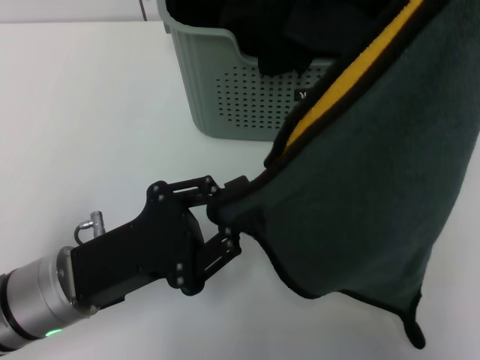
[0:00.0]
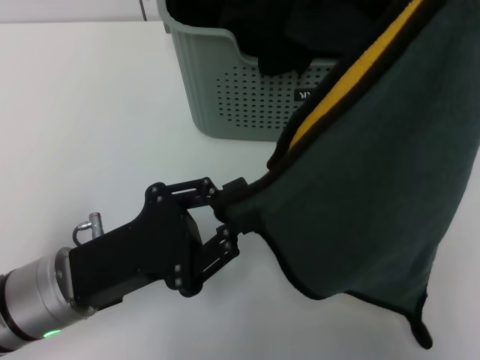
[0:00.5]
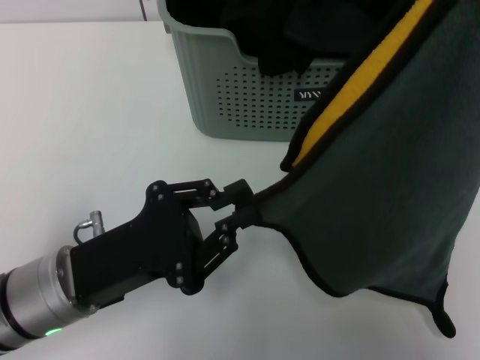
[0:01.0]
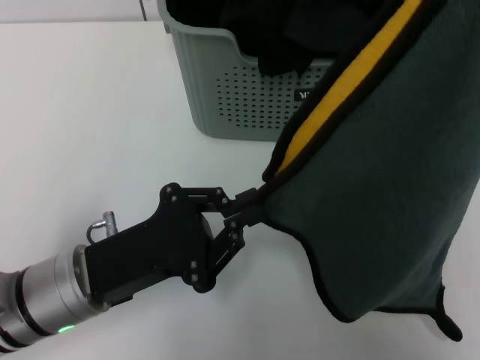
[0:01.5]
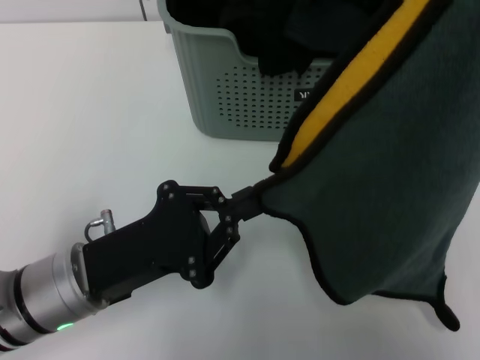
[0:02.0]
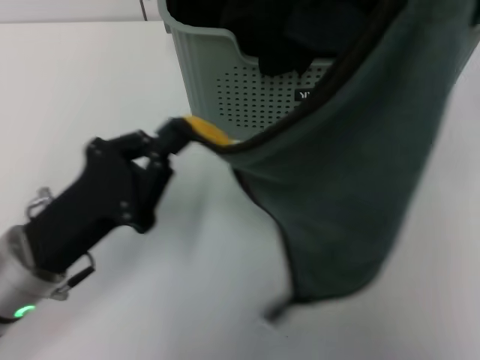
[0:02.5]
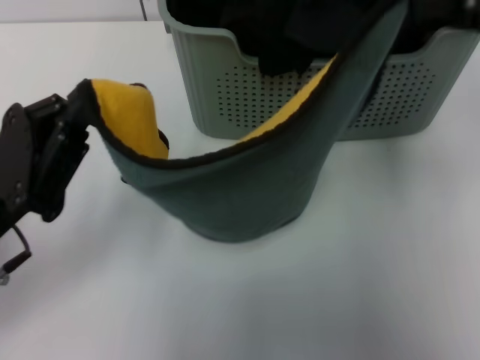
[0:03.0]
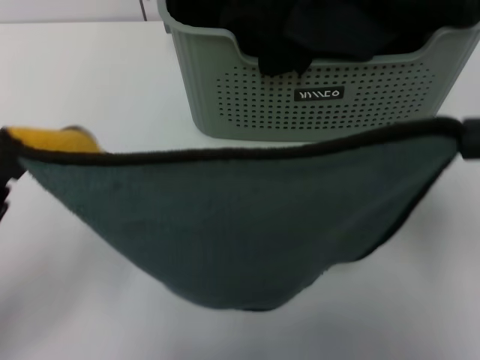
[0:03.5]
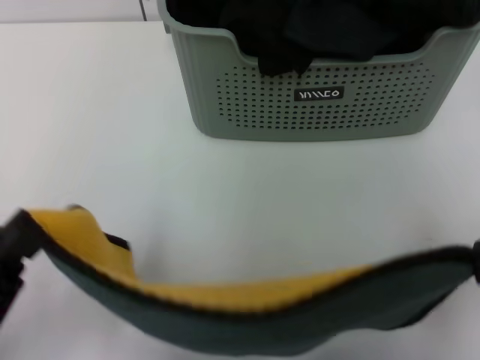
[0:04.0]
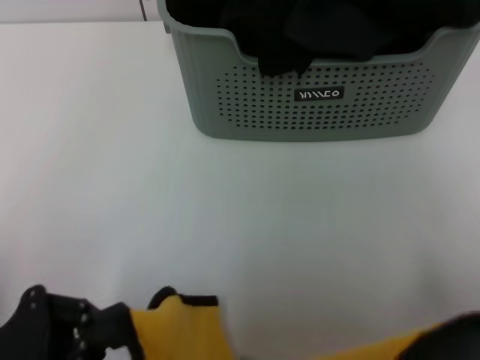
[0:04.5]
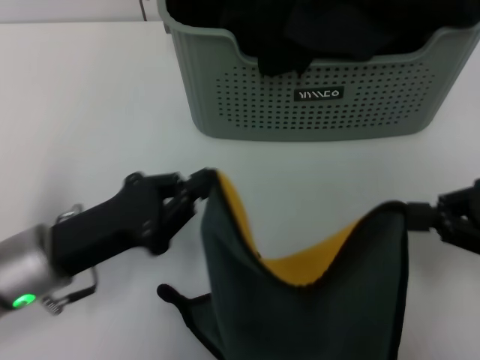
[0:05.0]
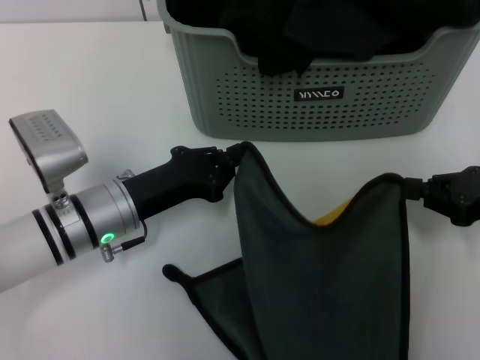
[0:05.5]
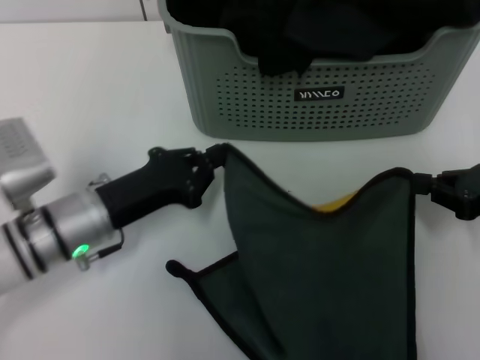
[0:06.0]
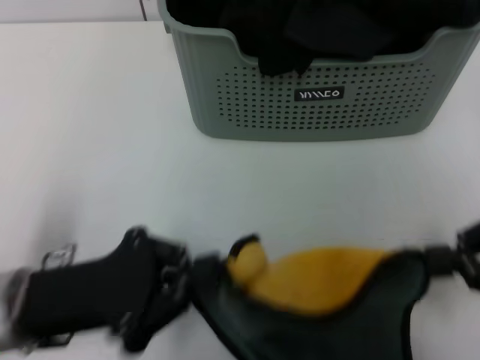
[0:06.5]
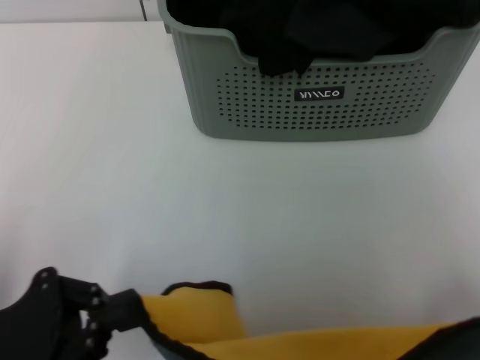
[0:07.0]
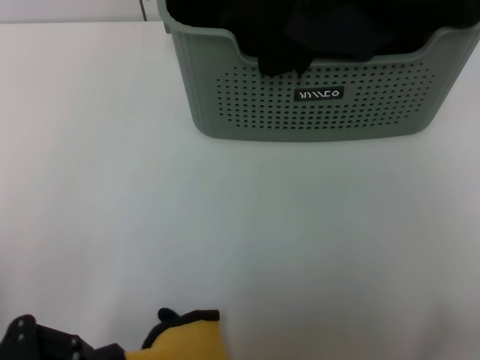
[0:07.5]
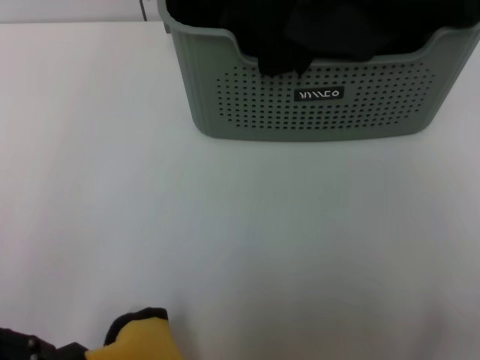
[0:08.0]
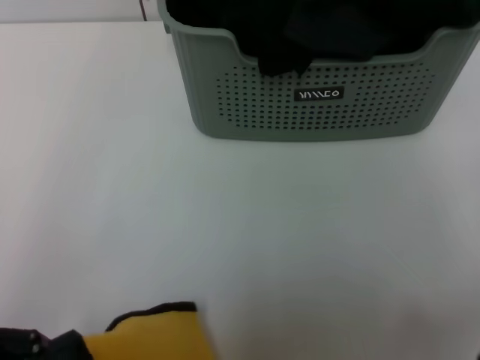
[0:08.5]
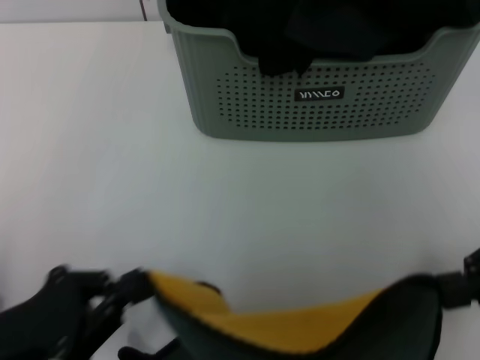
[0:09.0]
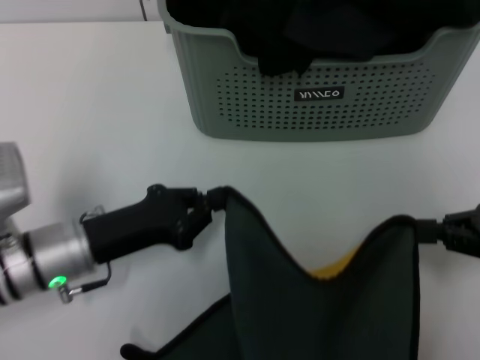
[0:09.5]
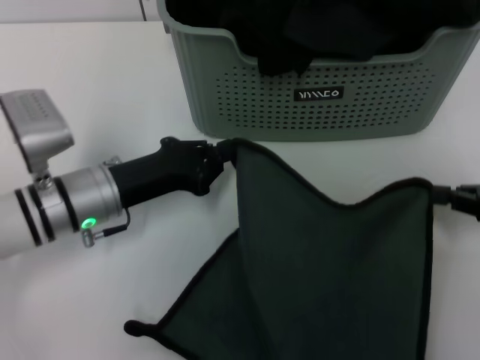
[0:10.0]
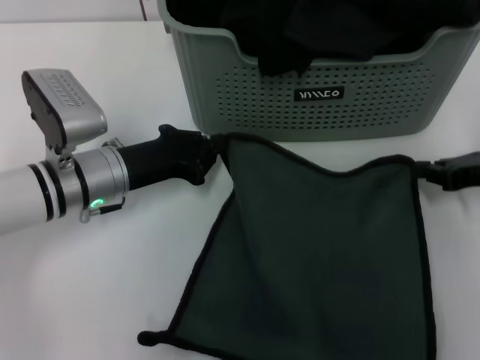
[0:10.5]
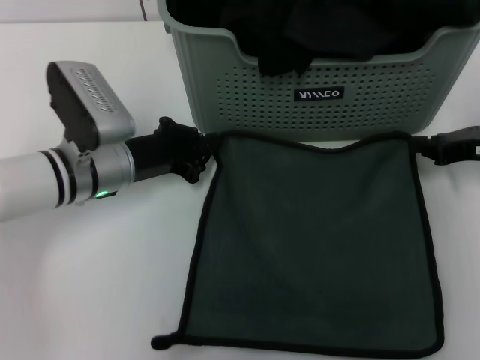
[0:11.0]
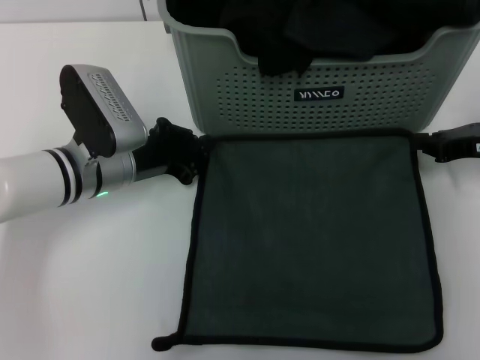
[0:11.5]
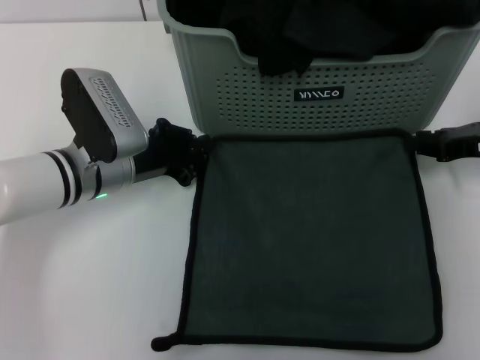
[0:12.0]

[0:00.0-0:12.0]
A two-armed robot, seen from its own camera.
Task of the whole recording: pick up the towel from the storage box and lay it flat on the table.
0.0 to 2.0 s: The two grippers keep their place.
2.0 to 4.0 s: The right gripper is displaced downward and backward by approximately 20 cm. The left gripper is displaced backward and to the left by about 15 cm.
4.0 to 6.0 s: The left gripper moves forward and to the right, approximately 20 cm; the right gripper is displaced downward and forward by roughly 20 cm.
6.0 to 8.0 s: The left gripper is displaced backward, to the left and upward by approximately 20 cm, while the right gripper heads backward and upward, covering about 15 cm.
8.0 to 10.0 s: The right gripper moves downward and forward, some 15 cm; the left gripper is displaced forward and to the right by approximately 25 cm.
10.0 to 12.0 s: The right gripper shifts roughly 10 cm forward.

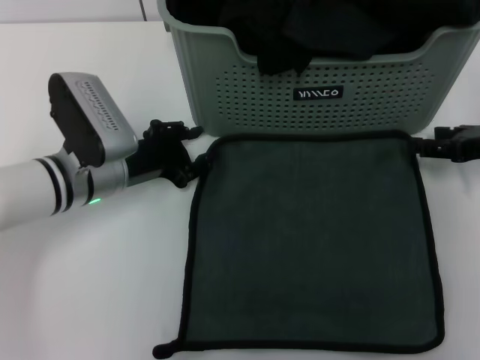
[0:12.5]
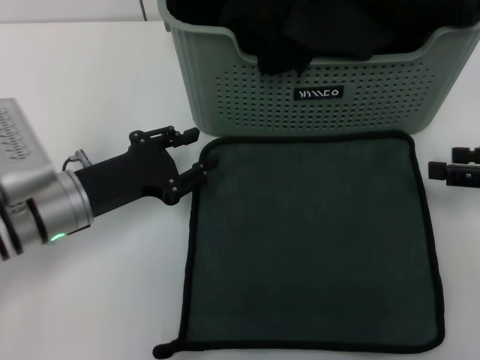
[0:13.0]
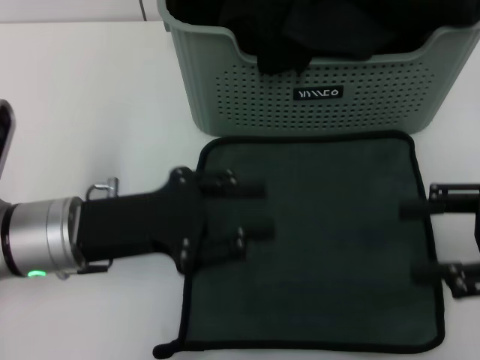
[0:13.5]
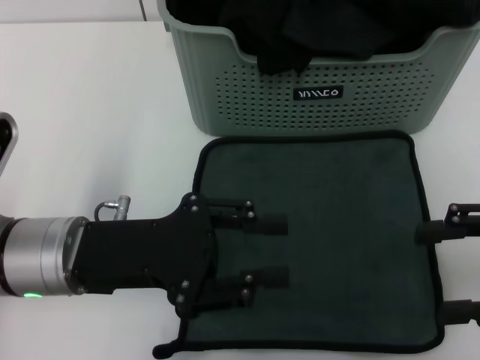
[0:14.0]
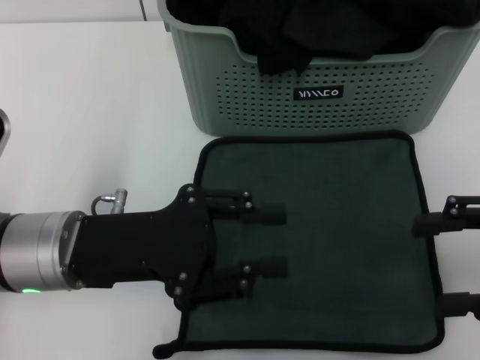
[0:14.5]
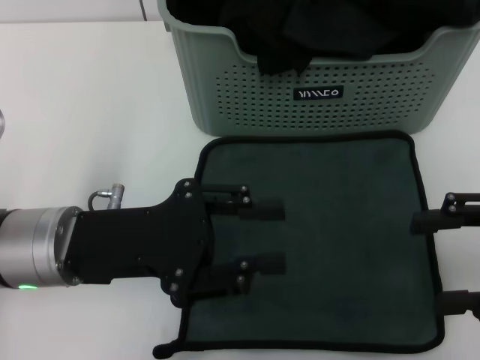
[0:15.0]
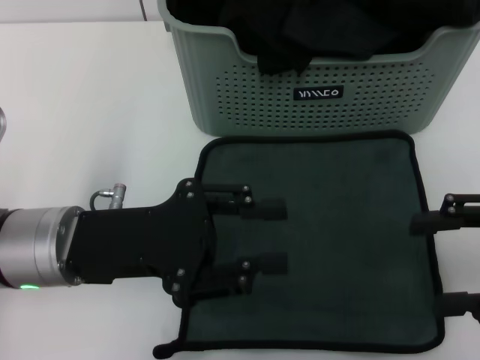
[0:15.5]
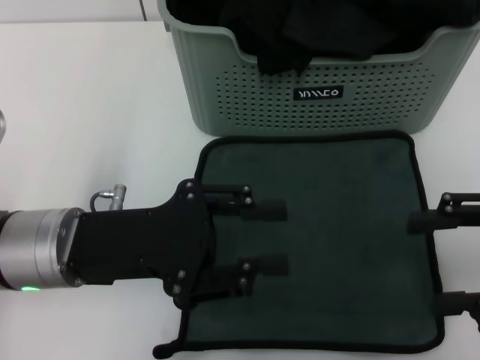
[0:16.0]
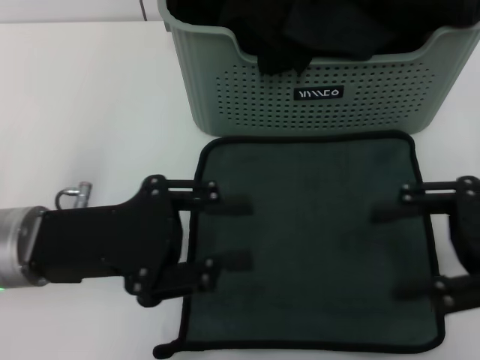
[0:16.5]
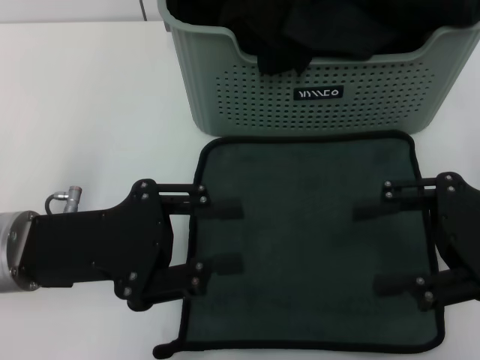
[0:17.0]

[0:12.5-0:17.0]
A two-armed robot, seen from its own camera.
Task of the whole recording: pick up the towel from the storage box and lay it flat on the table.
12.5 to 14.5 s: Both grippers move backward and upward, approximately 15 cm.
14.5 to 17.0 s: The right gripper changes place by approximately 5 cm.

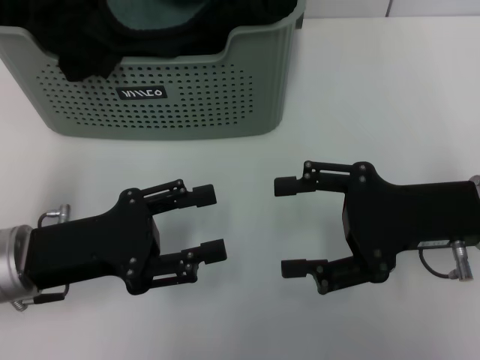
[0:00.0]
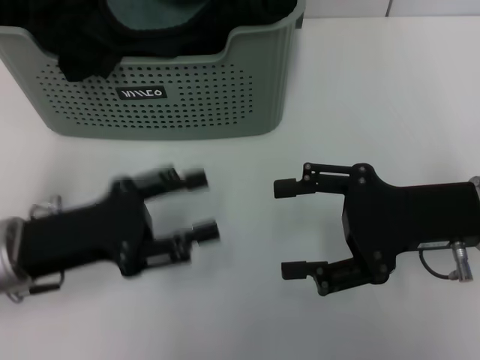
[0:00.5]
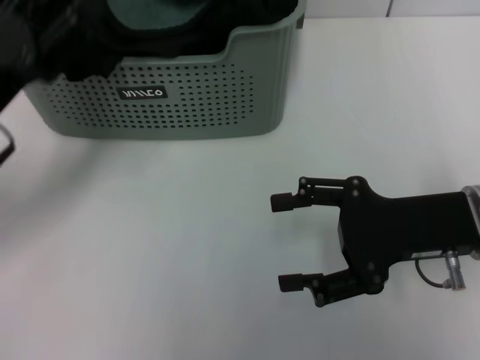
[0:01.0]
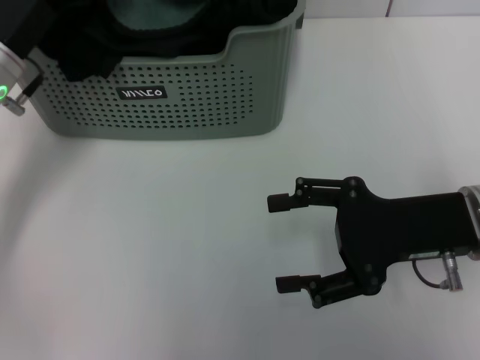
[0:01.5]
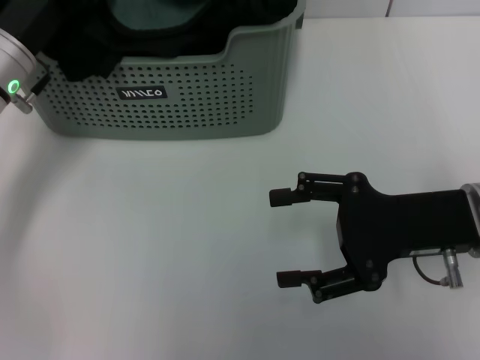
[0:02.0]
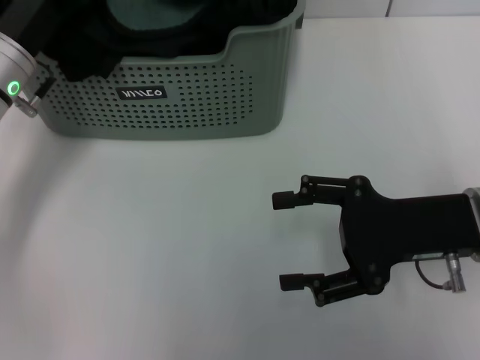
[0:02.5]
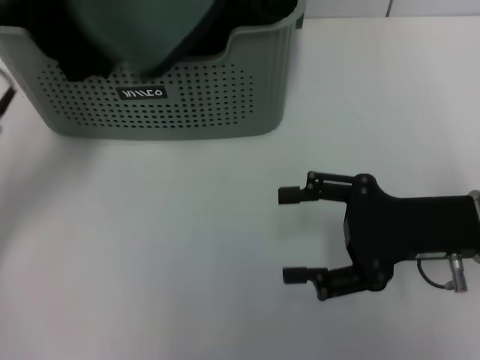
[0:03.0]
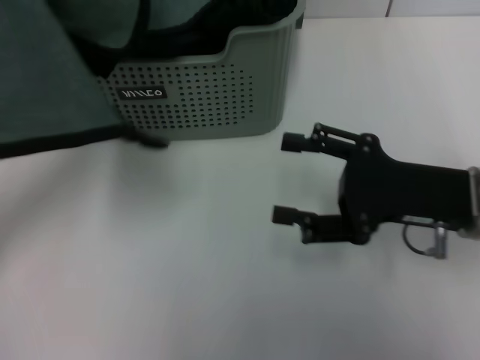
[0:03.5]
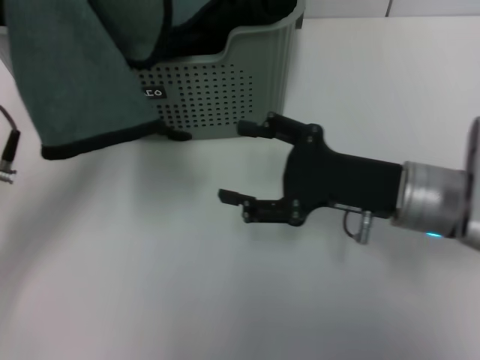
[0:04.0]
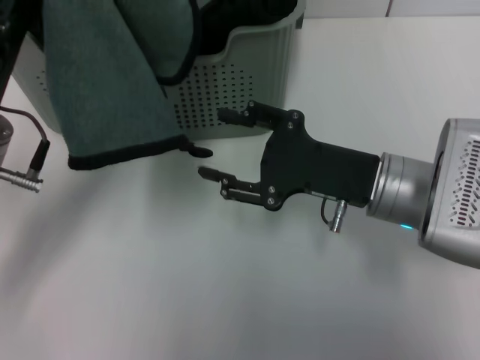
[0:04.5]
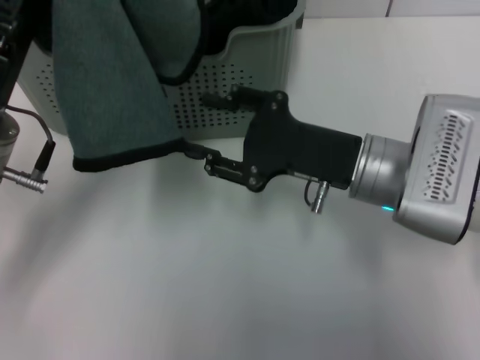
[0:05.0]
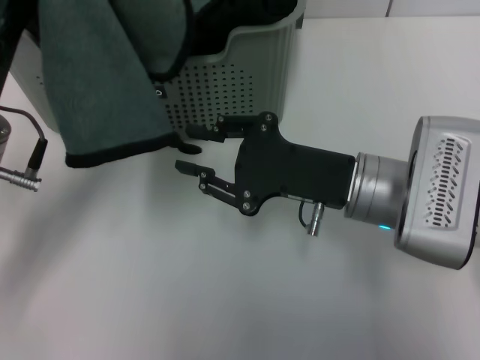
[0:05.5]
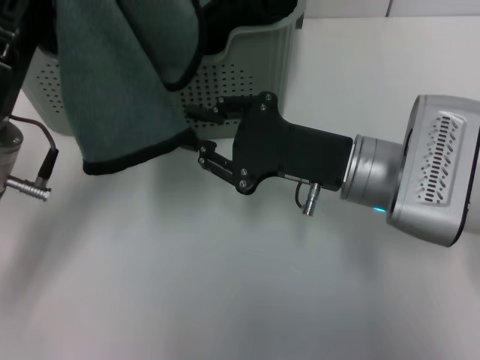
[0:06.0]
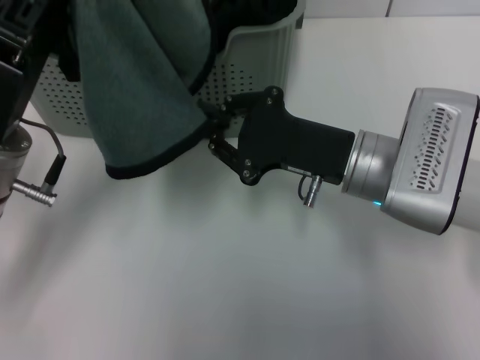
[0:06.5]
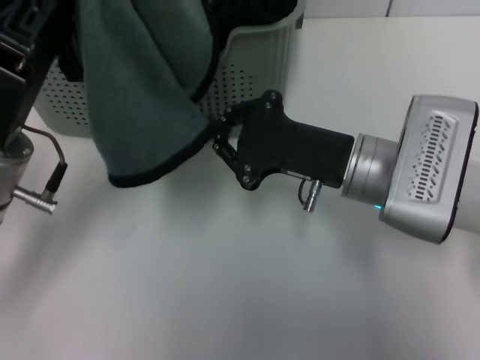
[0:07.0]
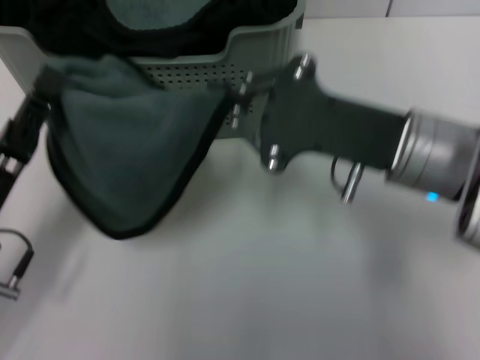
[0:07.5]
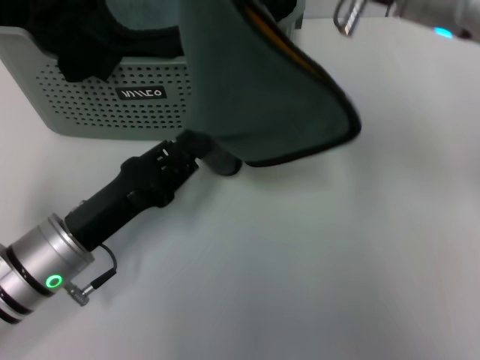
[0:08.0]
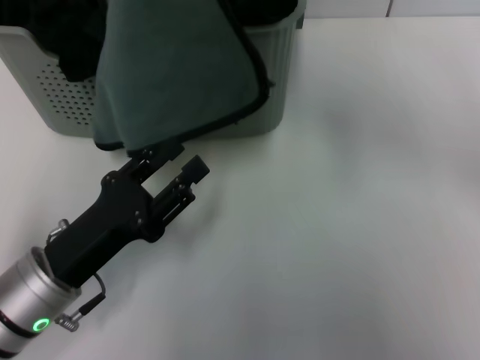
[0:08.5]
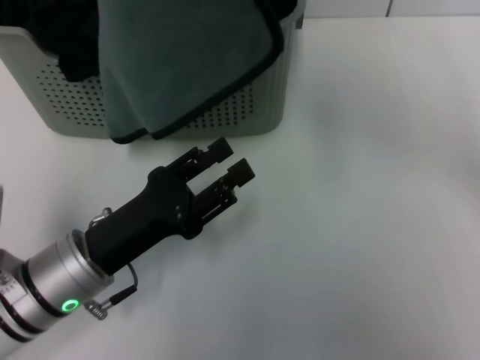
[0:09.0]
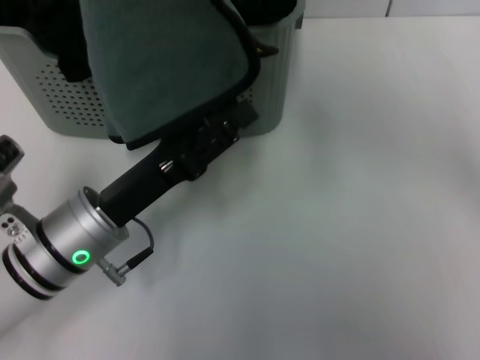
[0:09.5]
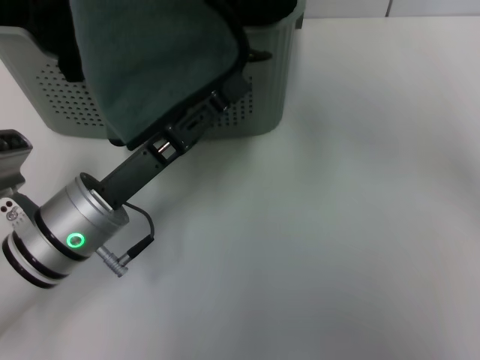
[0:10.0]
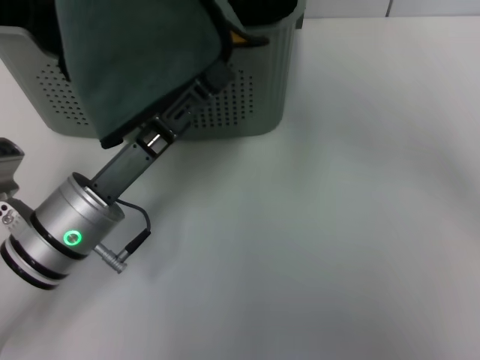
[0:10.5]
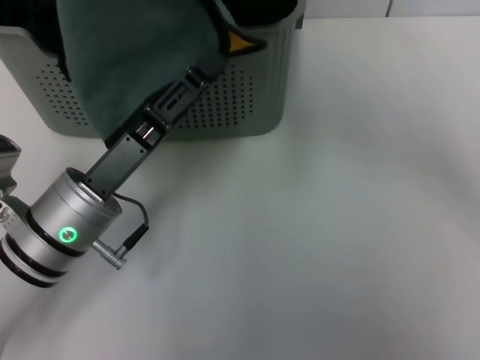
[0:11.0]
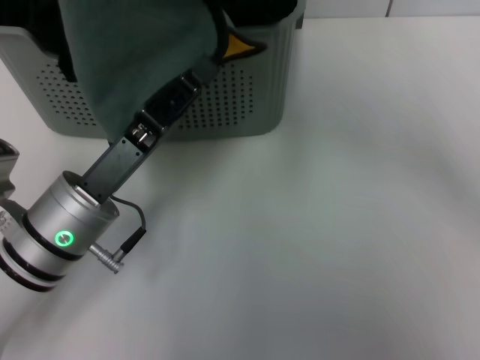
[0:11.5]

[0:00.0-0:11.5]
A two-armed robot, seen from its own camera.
Task of the whole recording: pick up the towel from the storage box and lay it flat on the table.
Step, 0.0 to 2.5 s: Pick up a towel with the left gripper.
Step, 3.0 to 6.5 s: Spread the towel flat with the left gripper.
0.0 to 2.0 s: The left gripper travels forward by roughly 15 cm.
2.0 to 4.0 s: The right gripper changes place by roughly 5 cm; the left gripper travels backward by approximately 10 cm, and closes.
4.0 to 6.0 s: The right gripper moves some 5 cm, and closes its fingers.
6.0 to 7.5 s: The left gripper moves downward and backward, approximately 10 cm. The right gripper is displaced upward by approximately 5 cm, and closes up.
7.5 to 9.5 s: The left gripper travels to the right by roughly 10 cm, and opens. Meanwhile the right gripper moves upward, to the left and forward, approximately 20 cm.
9.5 to 11.5 s: The left gripper closes its fingers.
